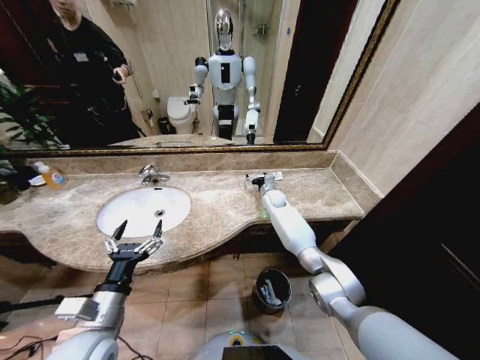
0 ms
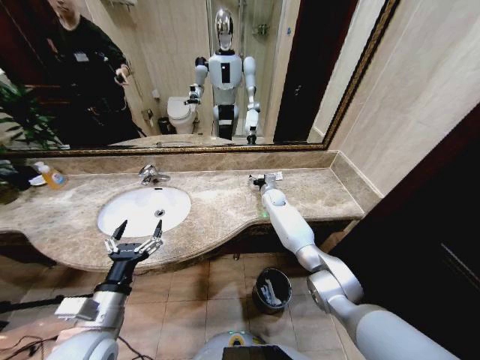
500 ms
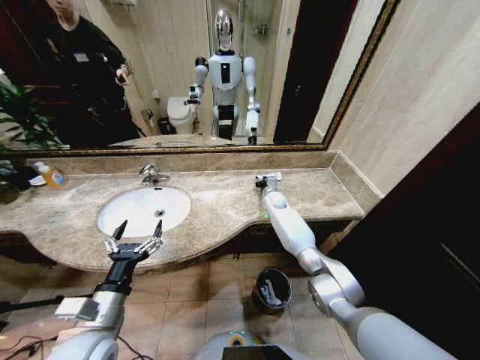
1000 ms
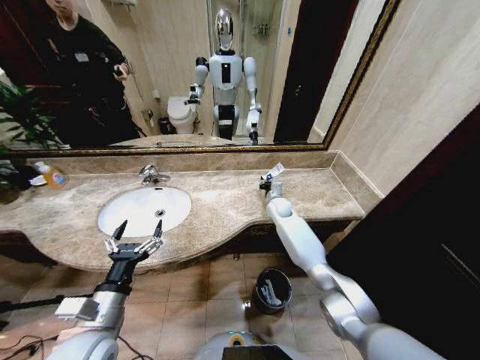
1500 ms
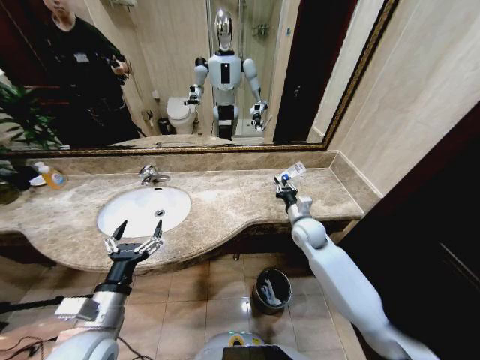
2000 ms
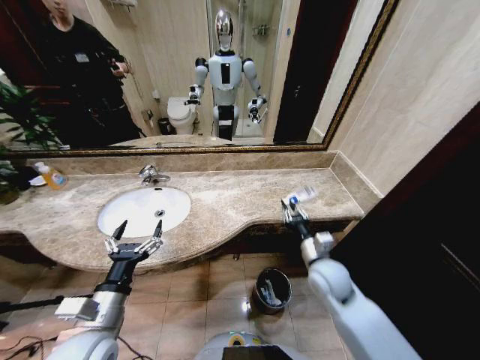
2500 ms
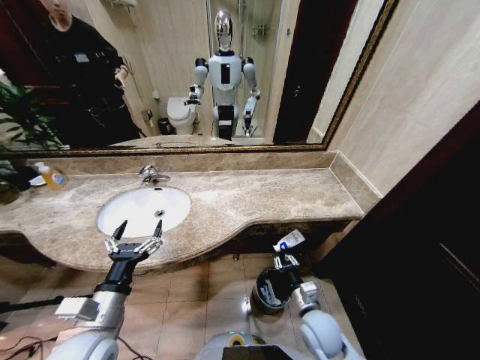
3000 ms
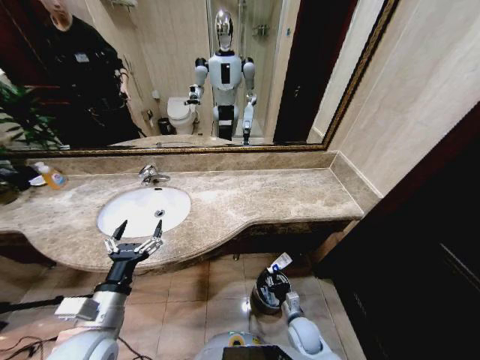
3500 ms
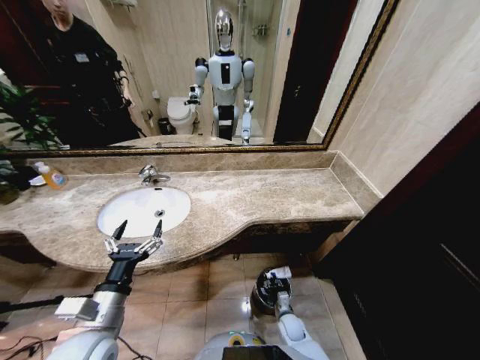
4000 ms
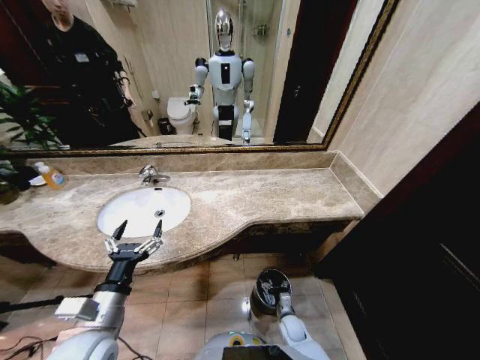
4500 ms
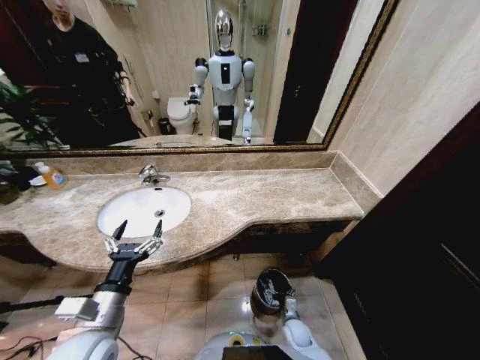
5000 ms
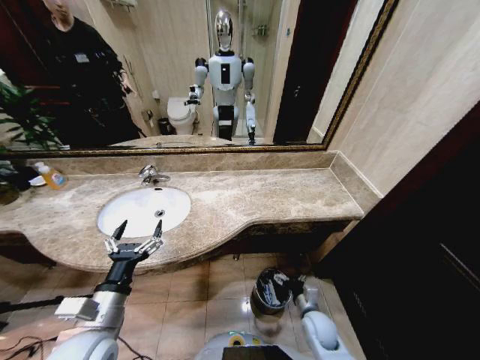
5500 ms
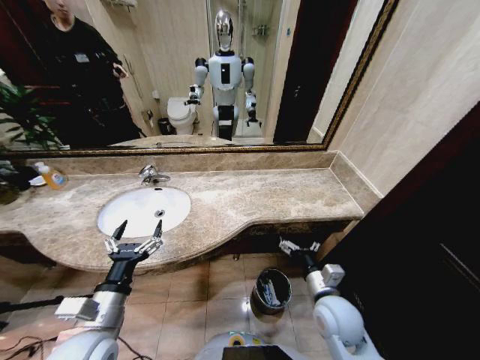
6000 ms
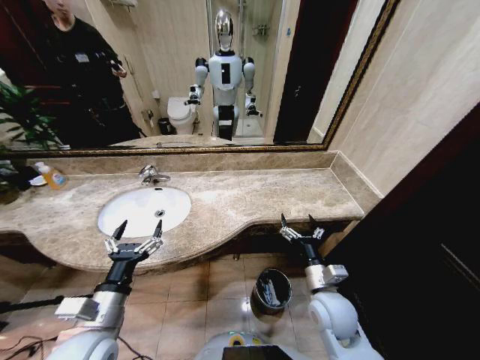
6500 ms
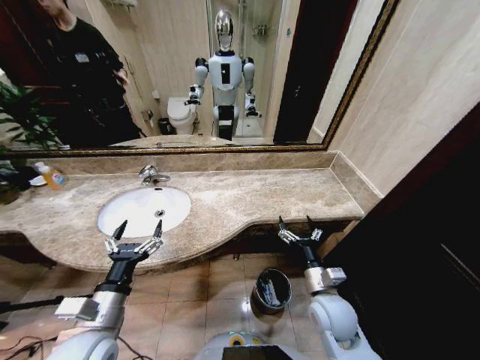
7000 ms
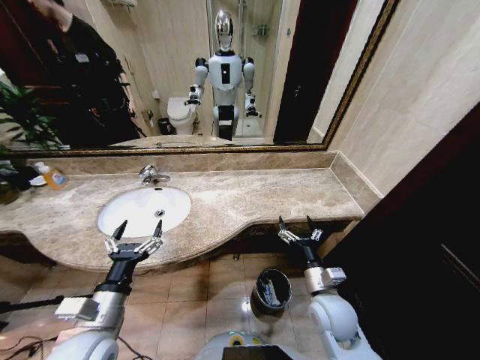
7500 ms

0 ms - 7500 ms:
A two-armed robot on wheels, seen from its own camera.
Task of the whole recording: Pick up the trash from the sink and place it in the trash bin.
0 ms - 2000 ms: The right gripper travels backward by approximately 20 cm, and closes.
2000 ms - 4000 ms: The right gripper heads downward and backward, covering approximately 40 cm.
4000 ms - 5500 ms: The right gripper heads upward, covering approximately 15 cm, and opens up.
5500 ms - 7500 ms: The right gripper goes about 15 cm upward.
